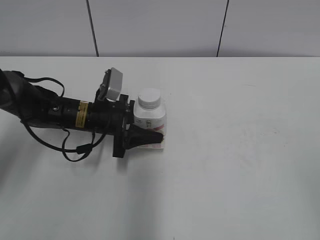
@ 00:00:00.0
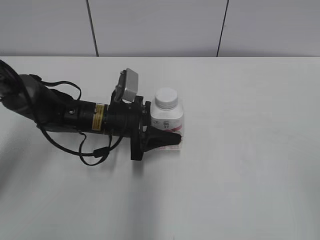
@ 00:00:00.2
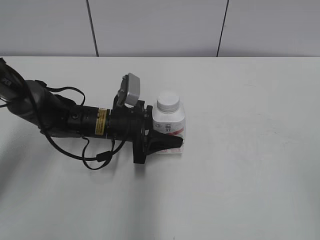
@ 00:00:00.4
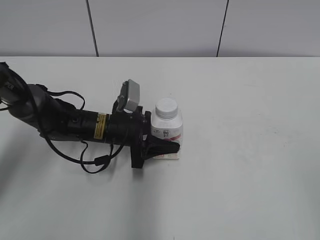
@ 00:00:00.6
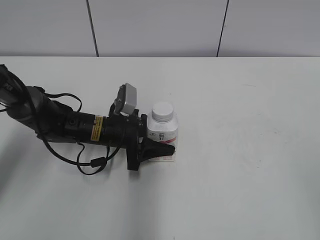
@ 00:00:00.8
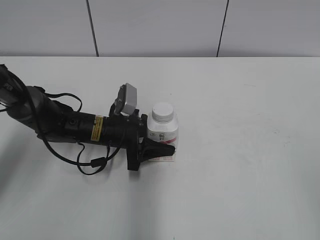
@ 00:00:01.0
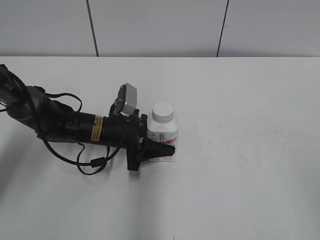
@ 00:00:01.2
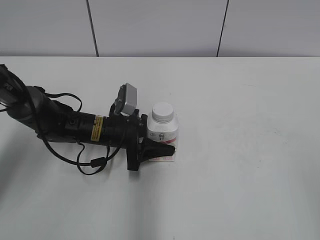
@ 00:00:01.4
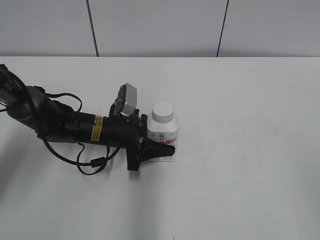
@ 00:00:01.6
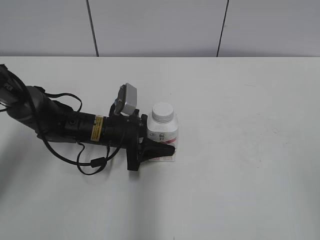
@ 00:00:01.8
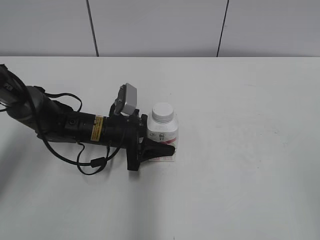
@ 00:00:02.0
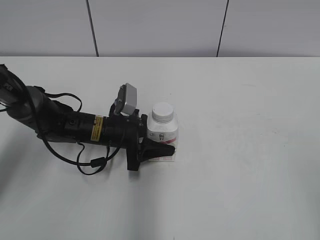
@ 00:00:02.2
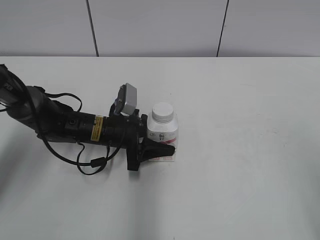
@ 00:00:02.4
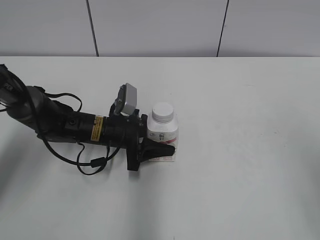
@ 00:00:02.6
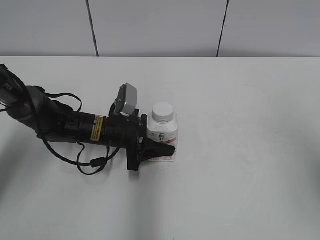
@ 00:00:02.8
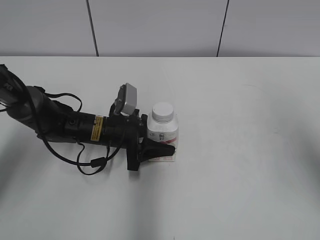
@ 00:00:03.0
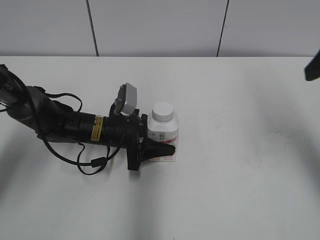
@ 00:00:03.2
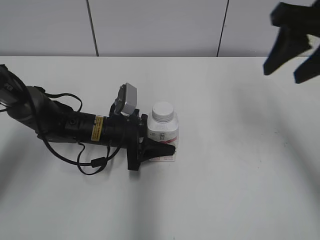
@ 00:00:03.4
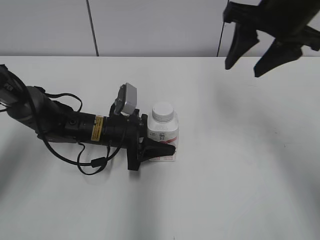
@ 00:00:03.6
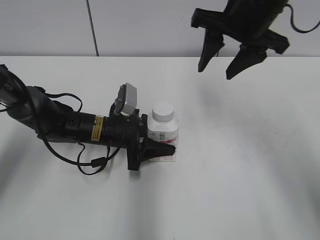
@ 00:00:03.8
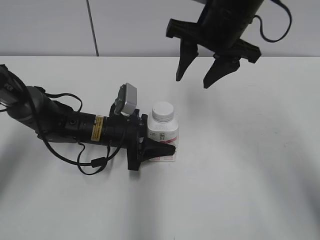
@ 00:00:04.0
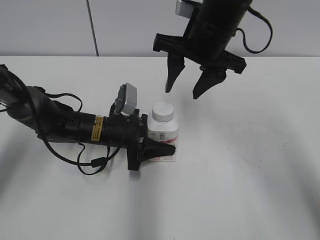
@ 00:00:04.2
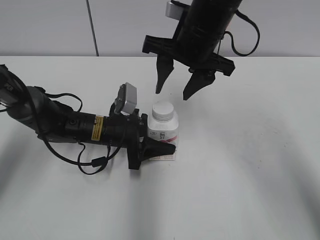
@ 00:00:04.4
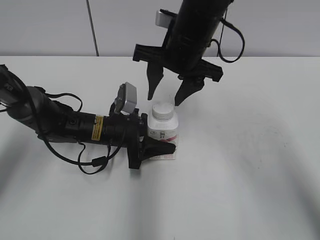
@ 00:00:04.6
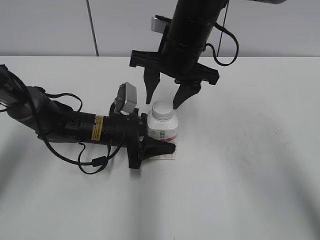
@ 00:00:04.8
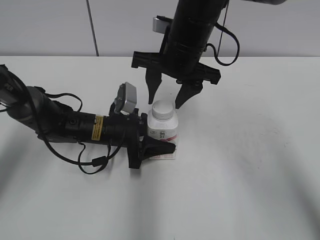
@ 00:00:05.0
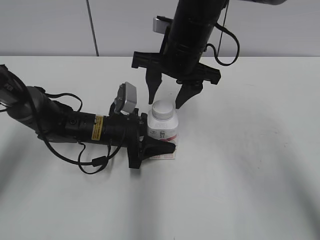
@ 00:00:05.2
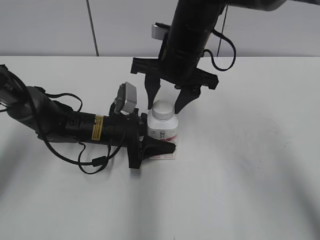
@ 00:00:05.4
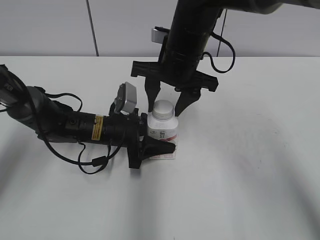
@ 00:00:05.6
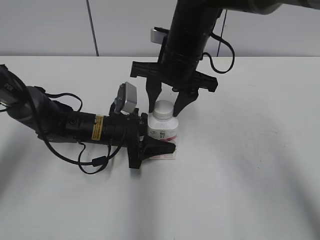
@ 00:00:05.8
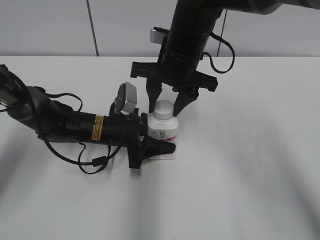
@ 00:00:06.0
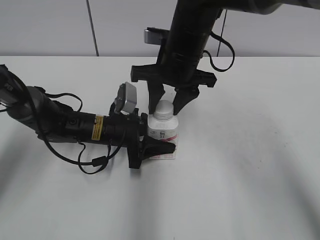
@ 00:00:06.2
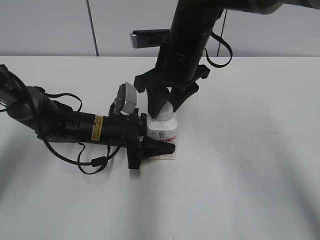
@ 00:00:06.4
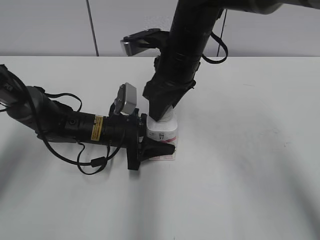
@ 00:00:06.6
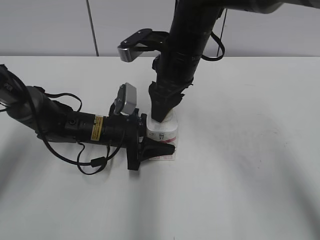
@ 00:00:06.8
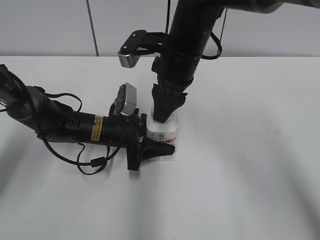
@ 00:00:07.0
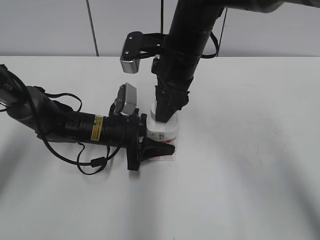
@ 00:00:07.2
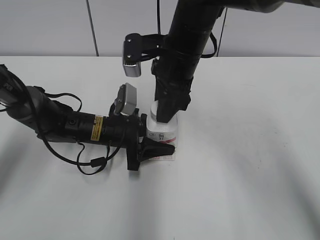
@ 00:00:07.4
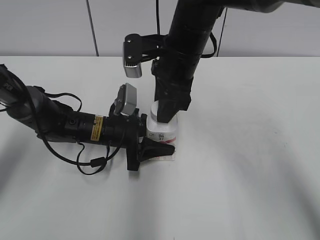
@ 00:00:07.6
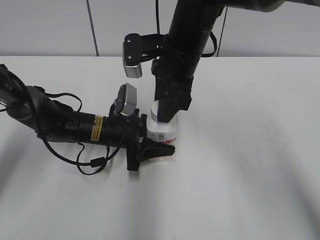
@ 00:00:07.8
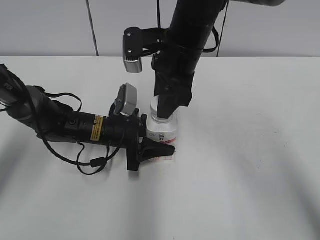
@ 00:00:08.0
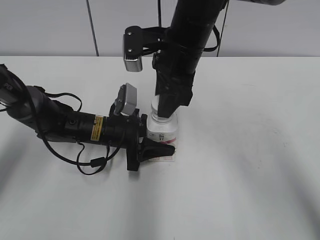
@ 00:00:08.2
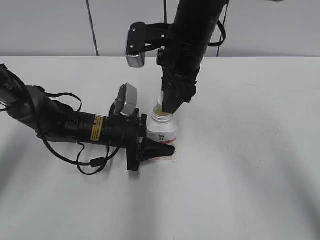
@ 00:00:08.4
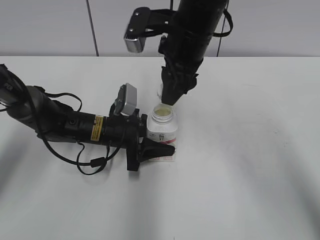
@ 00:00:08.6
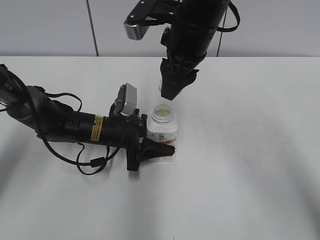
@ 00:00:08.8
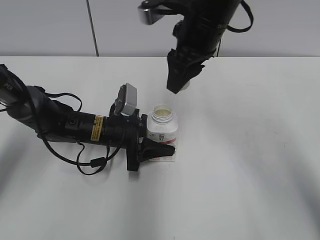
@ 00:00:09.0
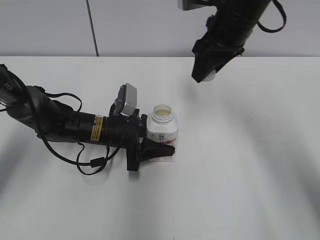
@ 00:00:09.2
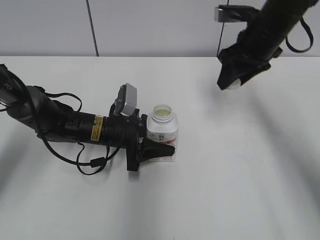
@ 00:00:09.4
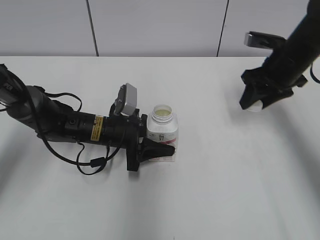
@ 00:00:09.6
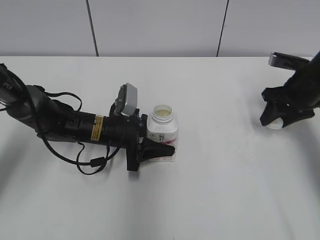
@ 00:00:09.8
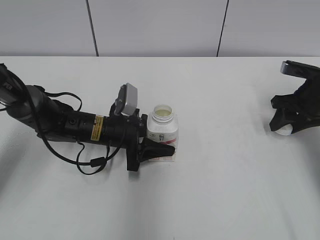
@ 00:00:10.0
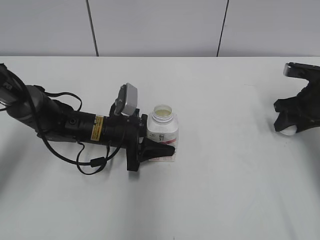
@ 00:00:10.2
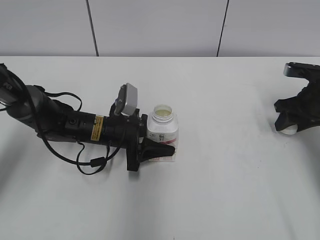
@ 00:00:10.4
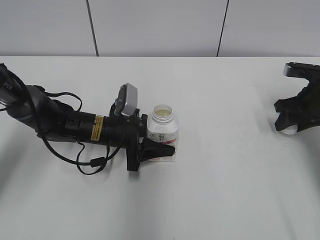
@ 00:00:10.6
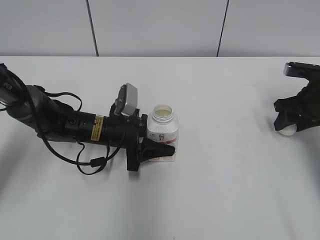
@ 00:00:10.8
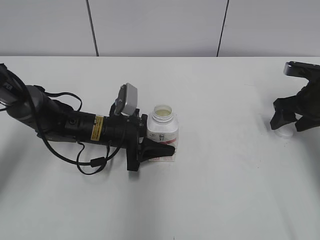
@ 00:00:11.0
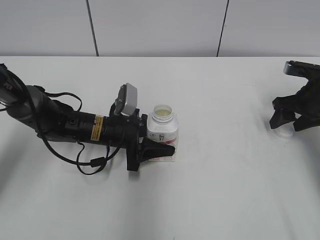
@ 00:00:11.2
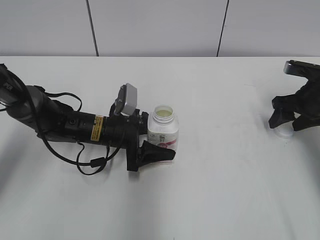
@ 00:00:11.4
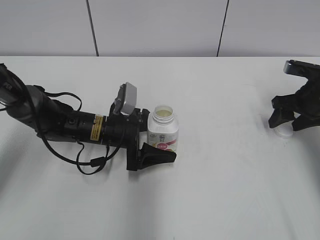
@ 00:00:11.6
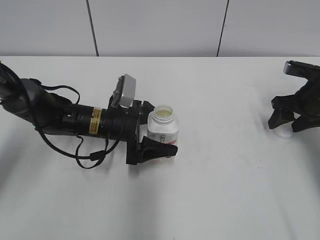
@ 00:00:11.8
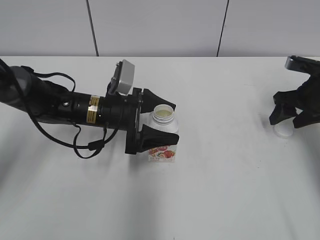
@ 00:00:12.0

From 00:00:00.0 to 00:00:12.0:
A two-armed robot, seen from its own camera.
Step, from 00:00:00.0 to 00:00:03.4: Move the Yili Changqing from left to right.
Step, from 00:00:08.6 to 00:00:11.0: Place the bottle cap on the right.
Step, from 00:00:11.2 to 00:00:11.6: Place the Yili Changqing with the left hand.
From 00:00:00.0 to 00:00:01.6: The grippers make only small movements.
From 00:00:01.6 to 00:00:03.0: The right gripper travels forward by about 20 cm.
From 00:00:03.0 to 00:00:04.4: The right gripper goes approximately 30 cm to the left and forward.
From 00:00:04.4 to 00:00:06.0: The right gripper closes up.
From 00:00:07.6 to 00:00:09.0: The right gripper changes place by about 5 cm.
From 00:00:09.0 to 00:00:10.4: The right gripper moves to the right and downward, roughly 30 cm.
From 00:00:10.4 to 00:00:12.0: The left gripper opens its fingers. Meanwhile the right gripper opens its fingers.

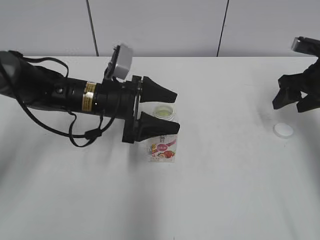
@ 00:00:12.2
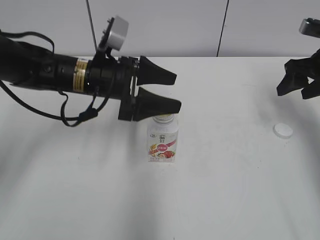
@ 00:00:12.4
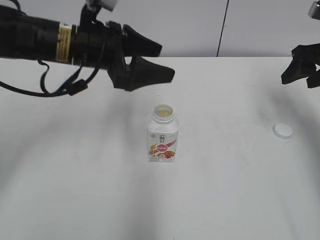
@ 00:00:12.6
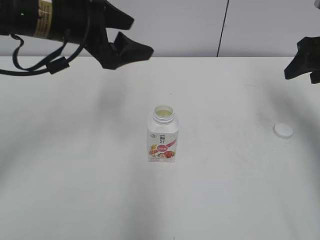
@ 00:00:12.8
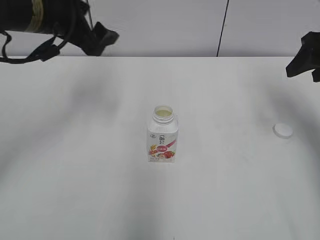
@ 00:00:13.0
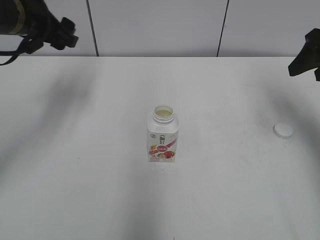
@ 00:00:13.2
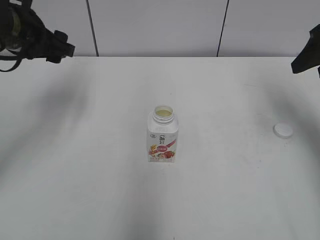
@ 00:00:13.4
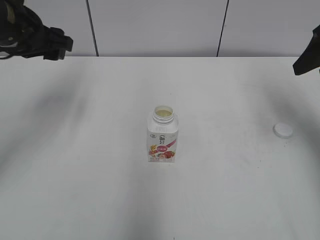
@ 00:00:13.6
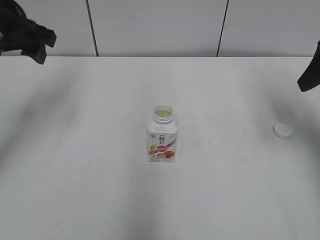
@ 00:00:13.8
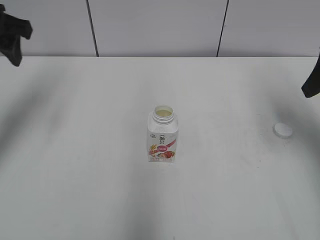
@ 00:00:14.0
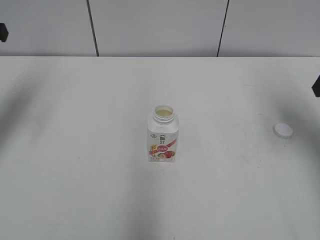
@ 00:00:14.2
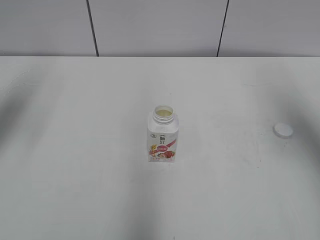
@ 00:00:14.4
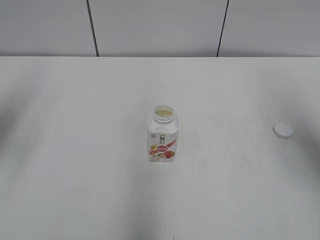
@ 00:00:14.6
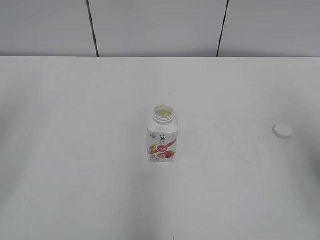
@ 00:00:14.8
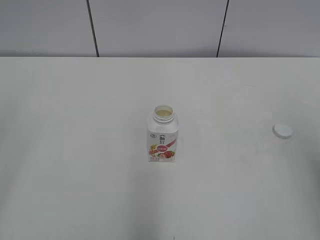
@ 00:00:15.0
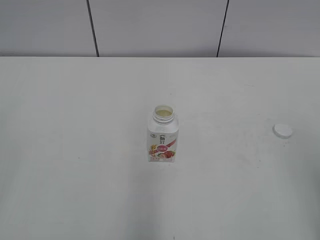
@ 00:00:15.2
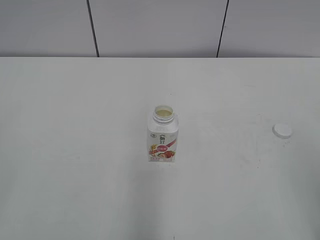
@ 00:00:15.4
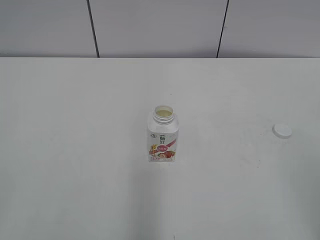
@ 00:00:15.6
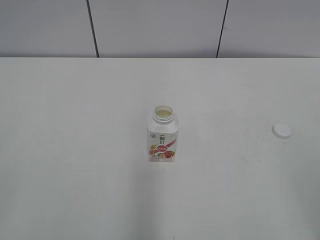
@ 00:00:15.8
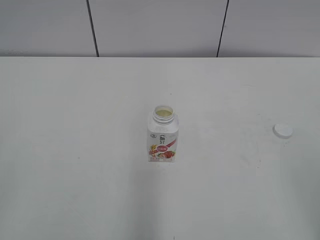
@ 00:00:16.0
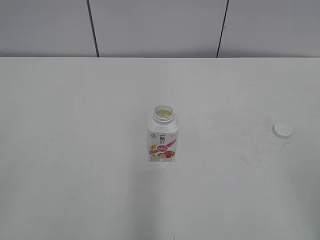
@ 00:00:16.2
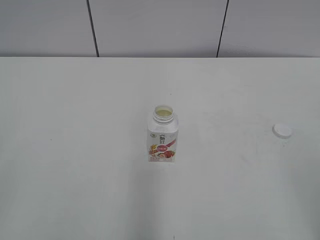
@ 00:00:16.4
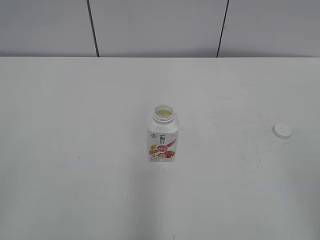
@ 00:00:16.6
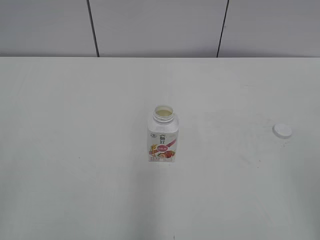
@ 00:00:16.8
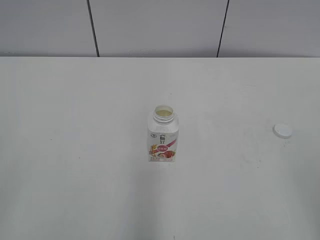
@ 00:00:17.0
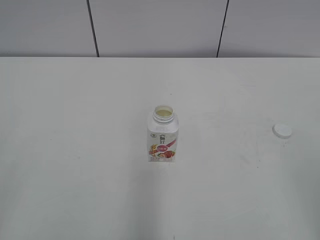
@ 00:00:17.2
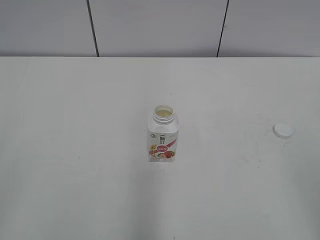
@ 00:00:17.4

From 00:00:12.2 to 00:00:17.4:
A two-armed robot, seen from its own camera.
From 00:00:12.2 to 00:00:14.0: The right gripper shifts about 15 cm upward and backward; the left gripper moves upward and to the left, approximately 25 cm.
From 00:00:14.0 to 00:00:15.6: Both grippers move backward, approximately 35 cm. The left gripper closes its fingers.
